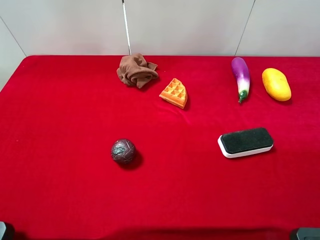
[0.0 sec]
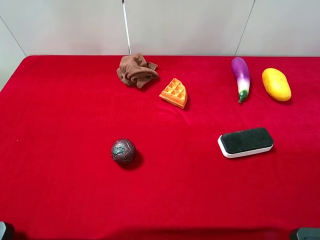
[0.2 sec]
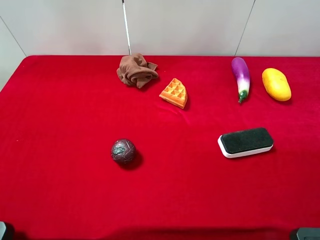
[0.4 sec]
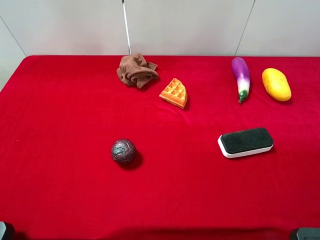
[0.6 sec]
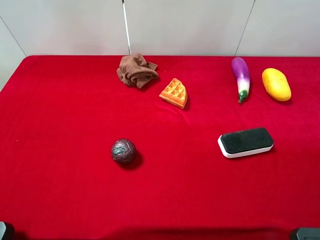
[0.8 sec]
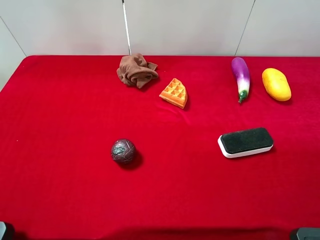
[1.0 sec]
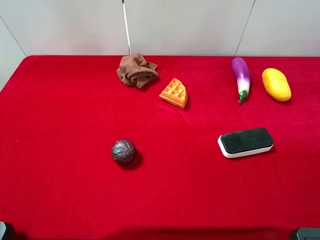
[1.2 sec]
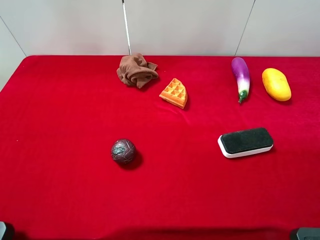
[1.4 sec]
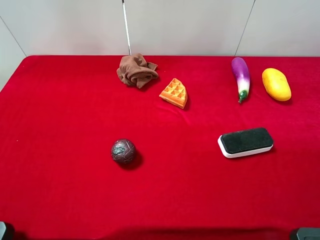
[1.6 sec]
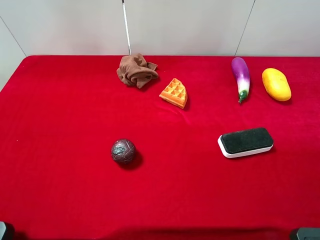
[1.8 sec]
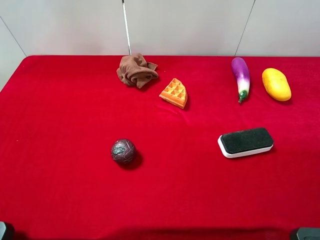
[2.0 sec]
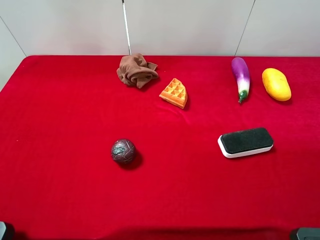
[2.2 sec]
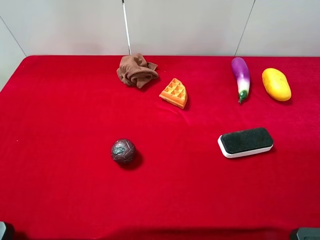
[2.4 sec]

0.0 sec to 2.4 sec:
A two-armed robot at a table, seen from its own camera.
Task of the whole recording: the gripper move the object.
1.2 sec to 2.4 sec: Both grippers stay put.

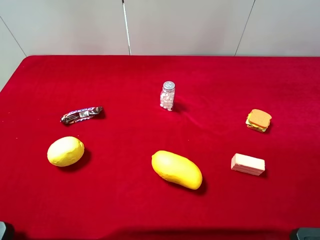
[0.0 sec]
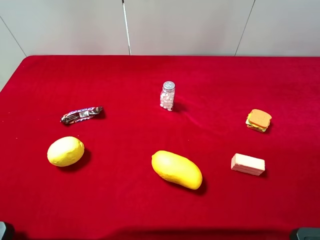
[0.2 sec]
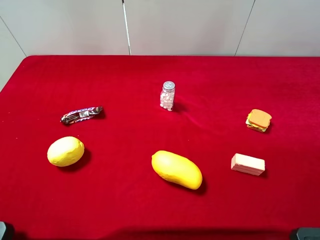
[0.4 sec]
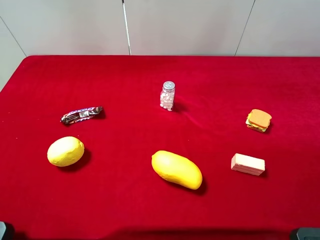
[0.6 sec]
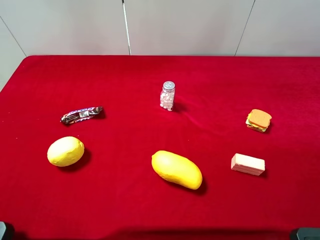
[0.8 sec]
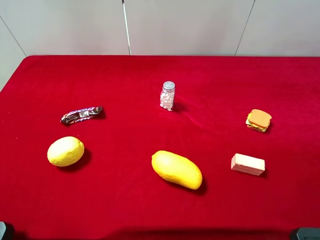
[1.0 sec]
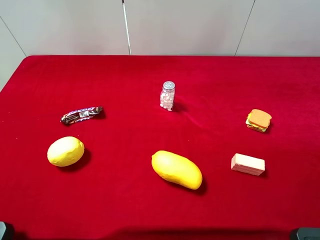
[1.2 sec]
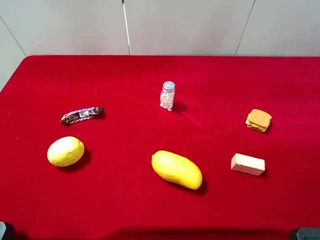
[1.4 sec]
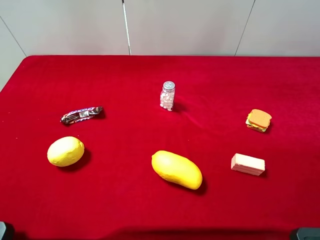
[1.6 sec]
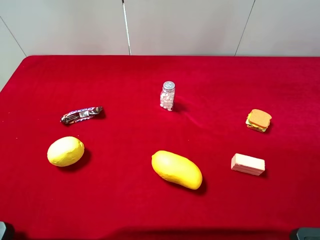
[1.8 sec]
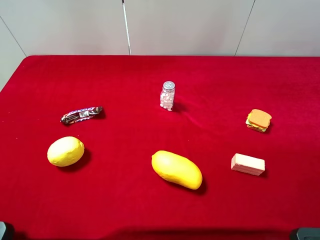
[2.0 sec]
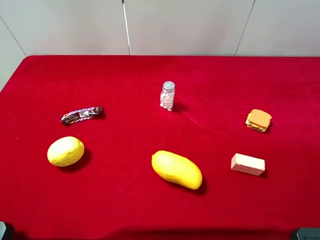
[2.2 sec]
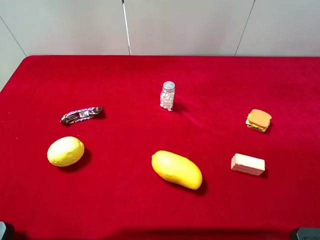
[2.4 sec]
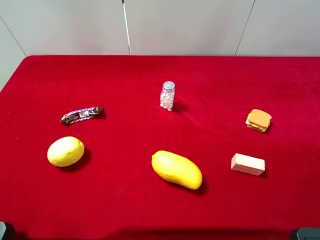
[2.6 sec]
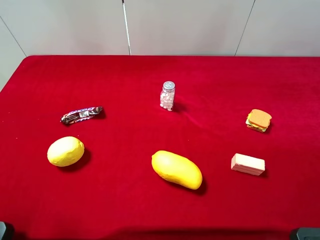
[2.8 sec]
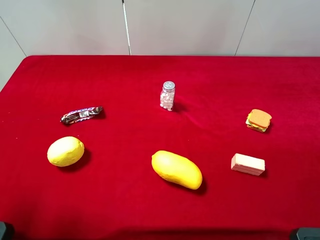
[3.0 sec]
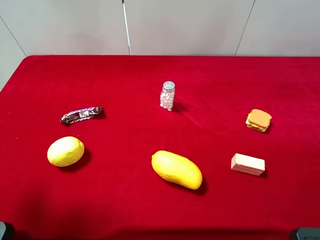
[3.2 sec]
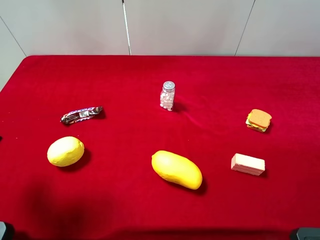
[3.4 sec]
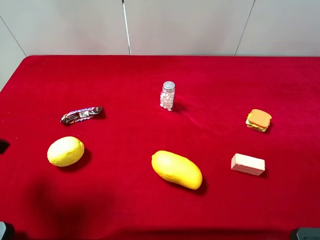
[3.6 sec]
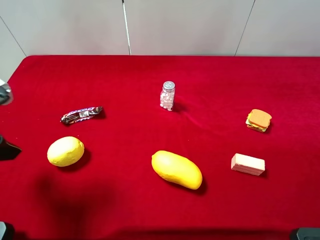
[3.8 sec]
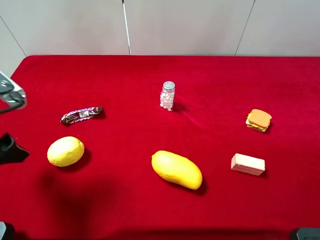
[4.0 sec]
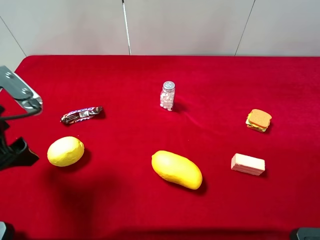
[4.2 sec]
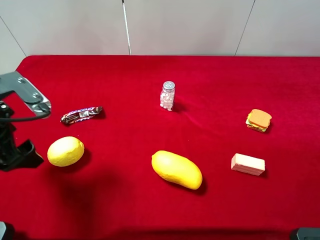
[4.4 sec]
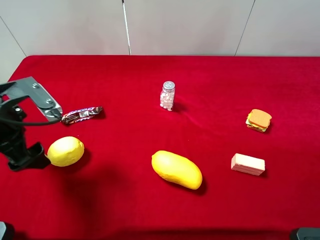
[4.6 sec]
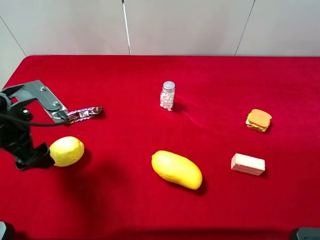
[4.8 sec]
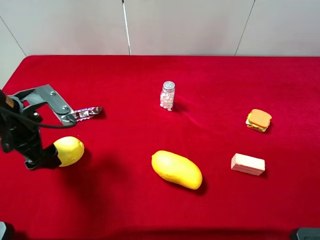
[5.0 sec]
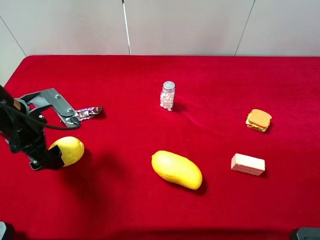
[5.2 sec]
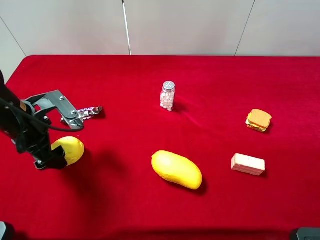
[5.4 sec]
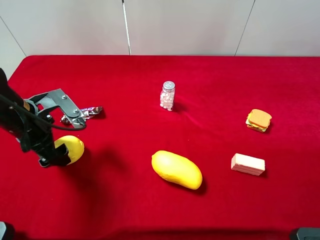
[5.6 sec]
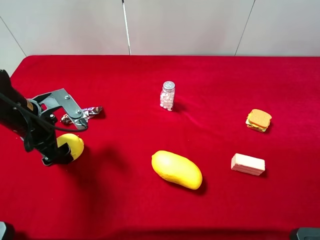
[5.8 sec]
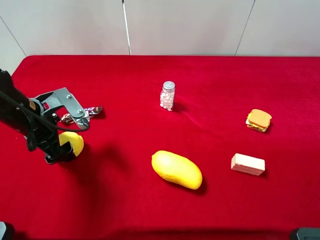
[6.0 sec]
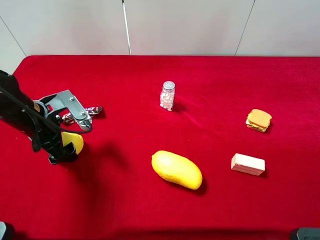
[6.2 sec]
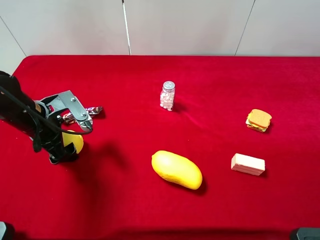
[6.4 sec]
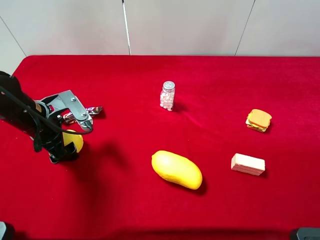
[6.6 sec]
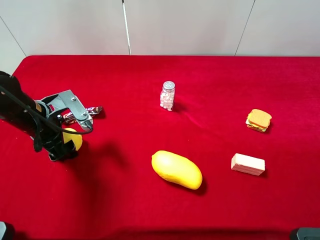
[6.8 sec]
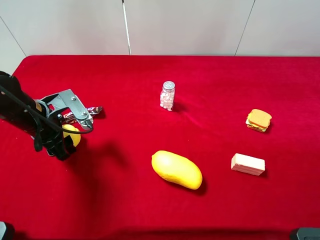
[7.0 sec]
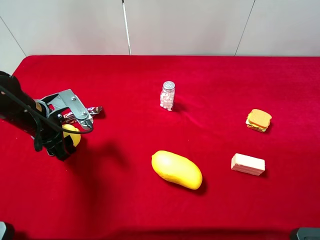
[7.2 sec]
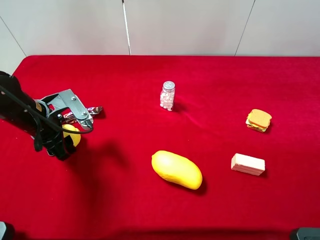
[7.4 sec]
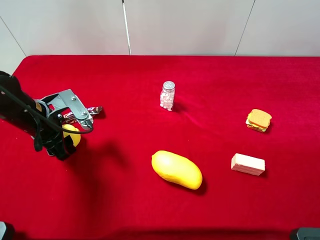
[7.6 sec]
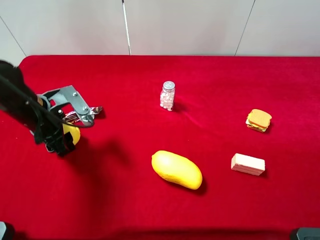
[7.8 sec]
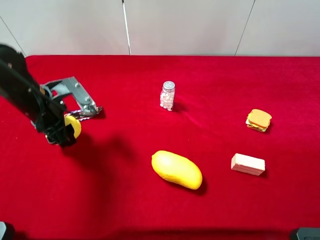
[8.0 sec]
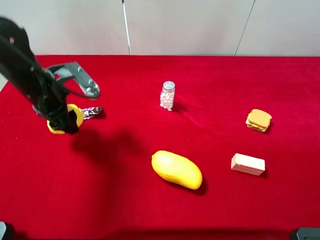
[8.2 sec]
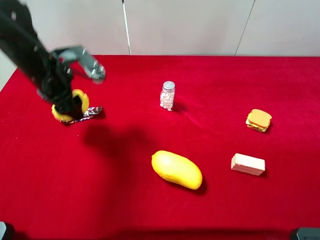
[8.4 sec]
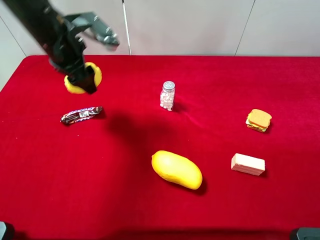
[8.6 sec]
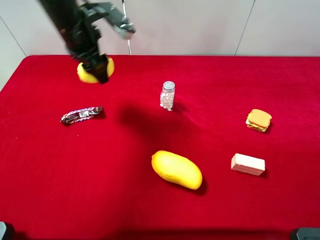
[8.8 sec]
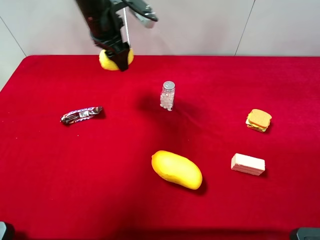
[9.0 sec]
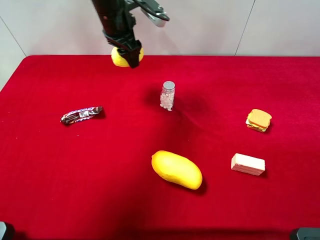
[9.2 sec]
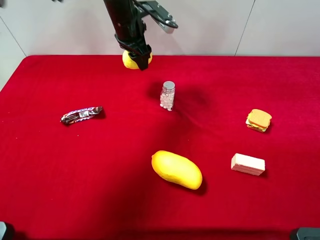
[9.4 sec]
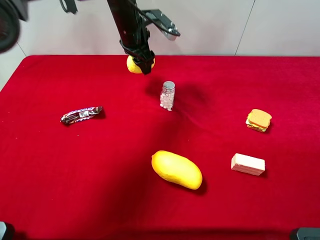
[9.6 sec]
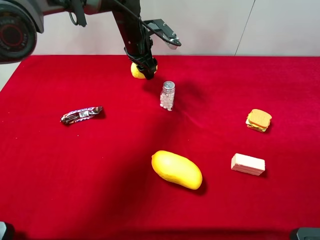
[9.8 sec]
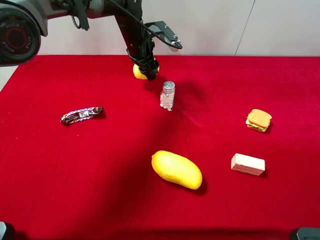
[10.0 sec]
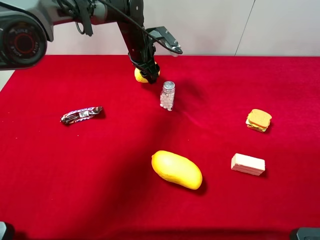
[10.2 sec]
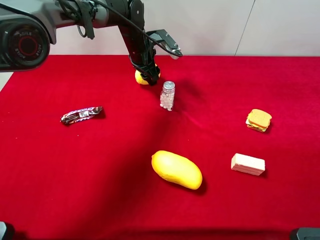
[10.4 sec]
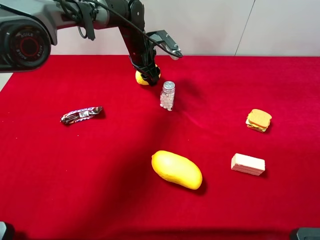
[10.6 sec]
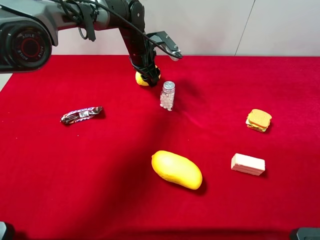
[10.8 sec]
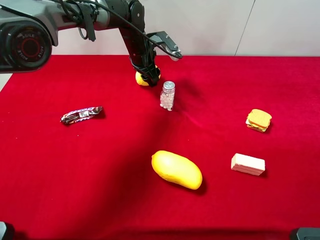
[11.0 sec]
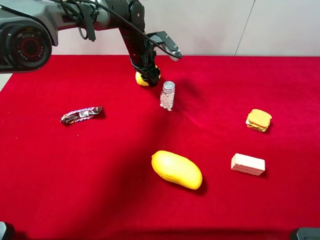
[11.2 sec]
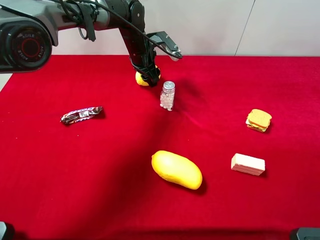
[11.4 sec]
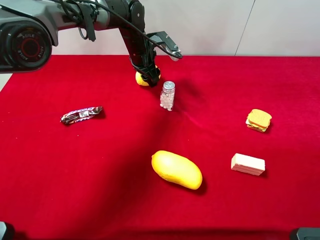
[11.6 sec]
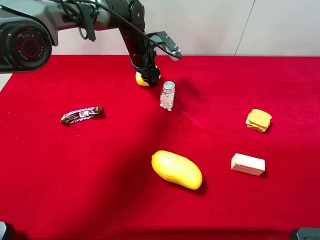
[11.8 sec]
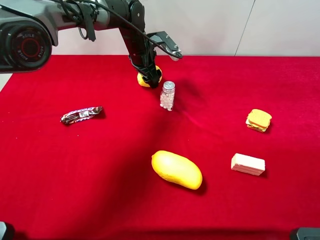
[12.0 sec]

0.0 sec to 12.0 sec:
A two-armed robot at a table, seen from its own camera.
Task of the whole recording: the gripper move the object.
Step, 0.0 sec to 7.2 sec: Grasp the lemon with the left gripper.
0.0 sec to 1.6 sec: Neither gripper changes place.
3.0 sec to 4.4 sec: The left gripper is displaced forward and downward by some 15 cm.
4.4 sec to 6.0 sec: The left gripper goes about 10 cm downward.
6.0 sec to 7.6 sec: The left gripper closes up.
7.6 sec to 9.0 sec: The left gripper moves forward, to the right and upward, approximately 25 cm.
9.0 sec to 10.4 sec: The left gripper is displaced downward, forward and to the right by roughly 15 cm.
10.4 sec to 12.0 sec: The left gripper opens up.

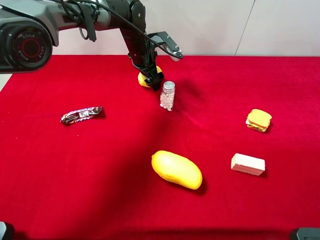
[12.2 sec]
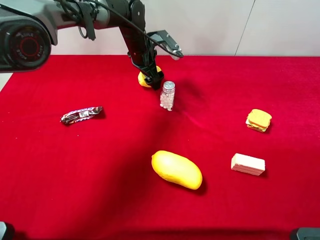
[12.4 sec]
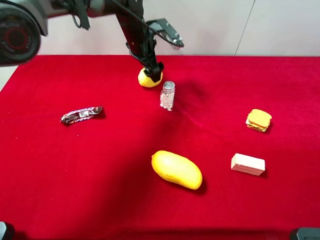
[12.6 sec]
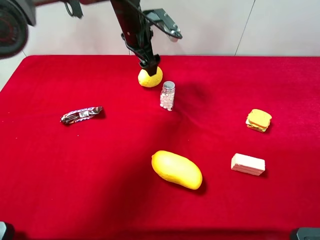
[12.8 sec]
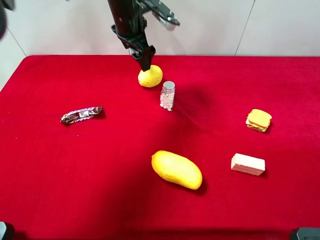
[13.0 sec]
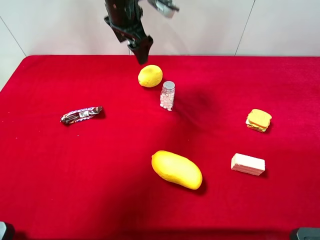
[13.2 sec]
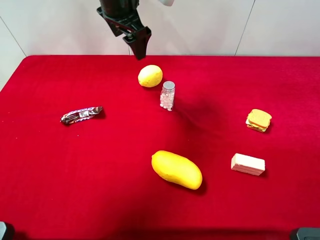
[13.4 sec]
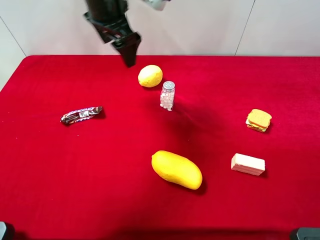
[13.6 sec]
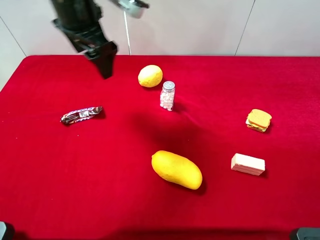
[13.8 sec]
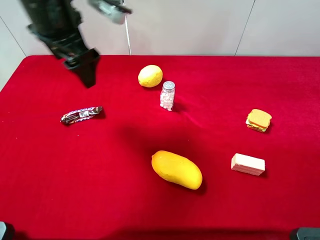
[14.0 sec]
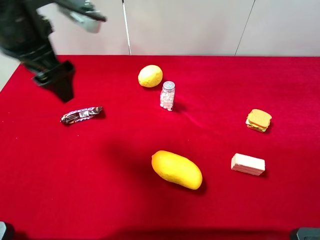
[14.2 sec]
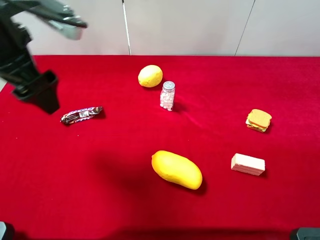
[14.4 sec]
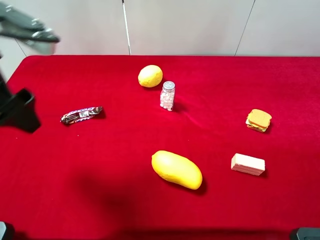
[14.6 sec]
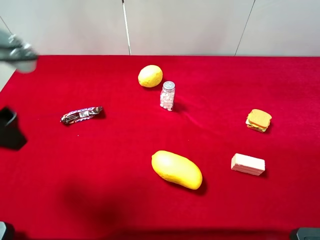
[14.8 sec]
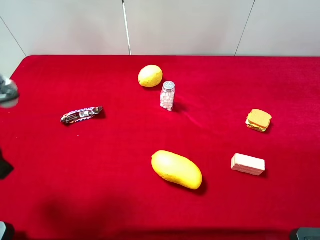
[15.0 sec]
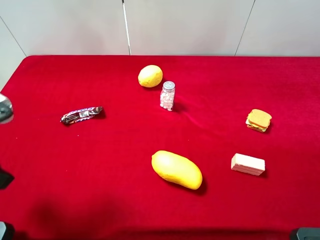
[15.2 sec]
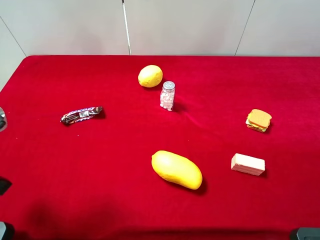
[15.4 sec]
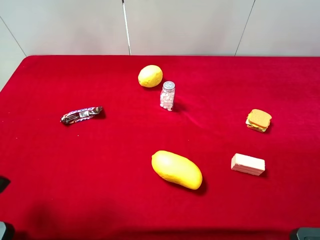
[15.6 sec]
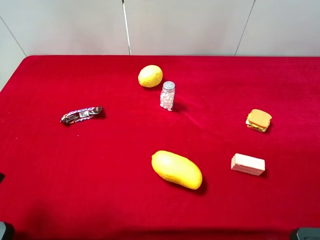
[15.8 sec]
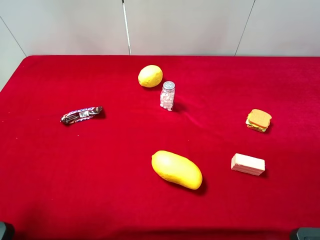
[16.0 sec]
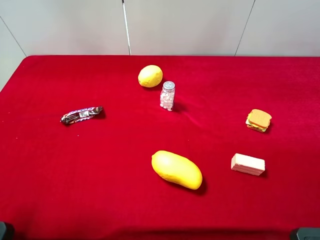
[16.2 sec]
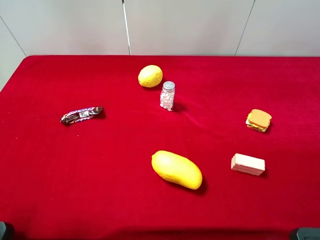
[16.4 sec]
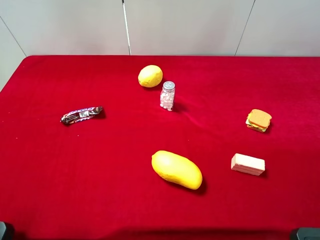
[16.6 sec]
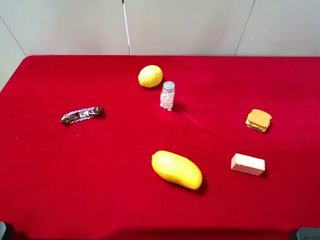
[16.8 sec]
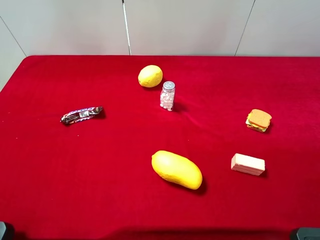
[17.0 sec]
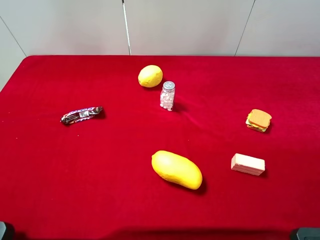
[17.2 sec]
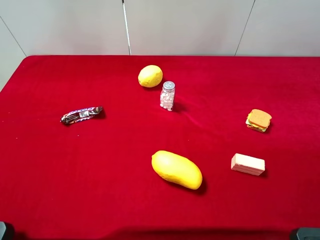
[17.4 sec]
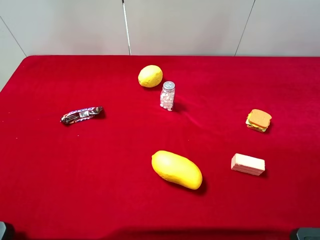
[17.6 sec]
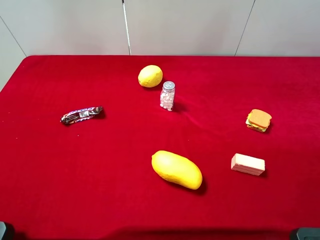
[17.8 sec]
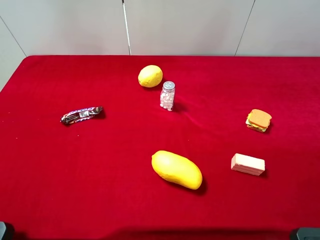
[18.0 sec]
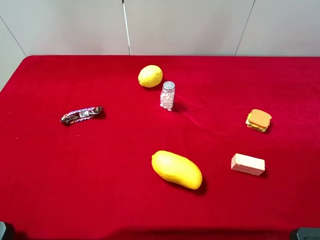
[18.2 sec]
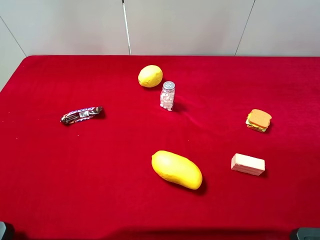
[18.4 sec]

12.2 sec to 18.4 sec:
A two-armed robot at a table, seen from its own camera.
Task of the whole recording: the gripper move the object.
12.2 sec to 13.8 sec: The left gripper is displaced upward, backward and to the left by approximately 25 cm.
13.8 sec to 15.4 sec: The left gripper moves backward and to the left, roughly 25 cm.
15.4 sec to 16.8 sec: The left gripper goes some 5 cm backward.
